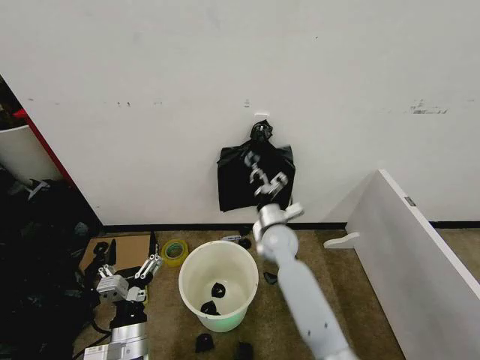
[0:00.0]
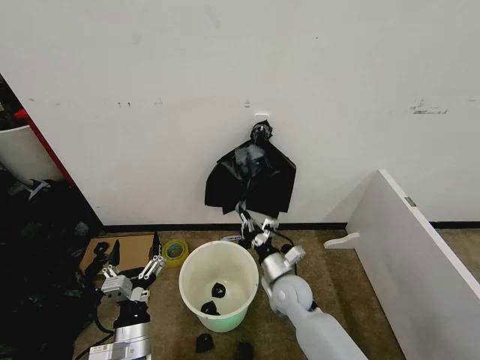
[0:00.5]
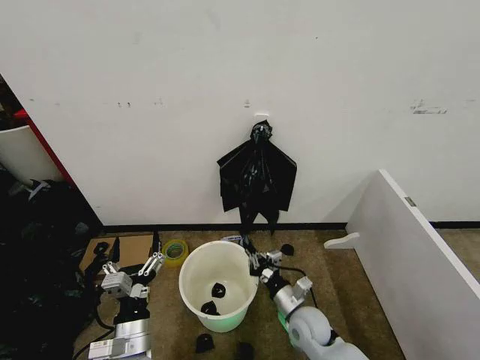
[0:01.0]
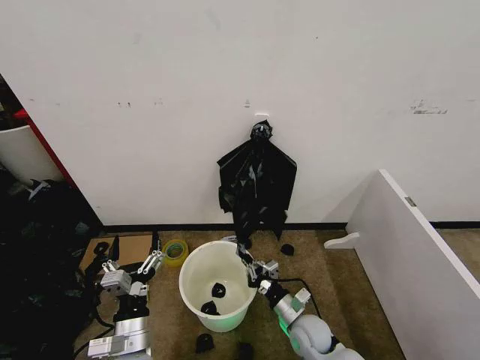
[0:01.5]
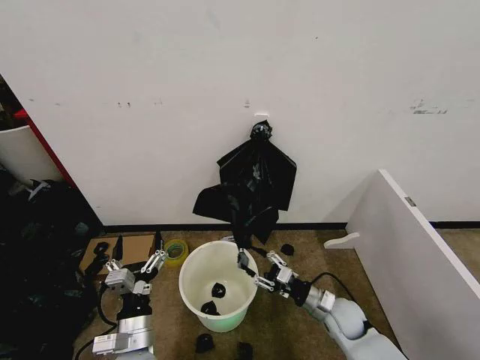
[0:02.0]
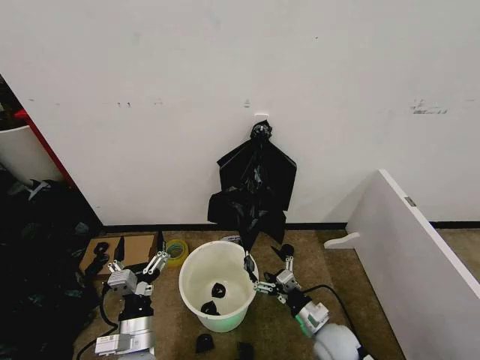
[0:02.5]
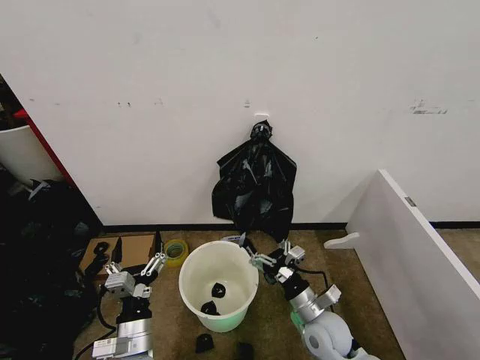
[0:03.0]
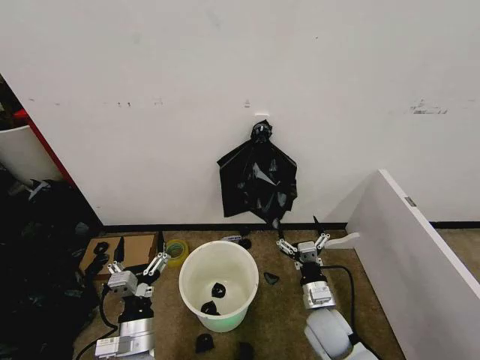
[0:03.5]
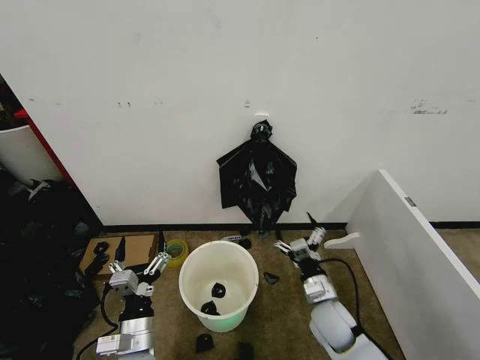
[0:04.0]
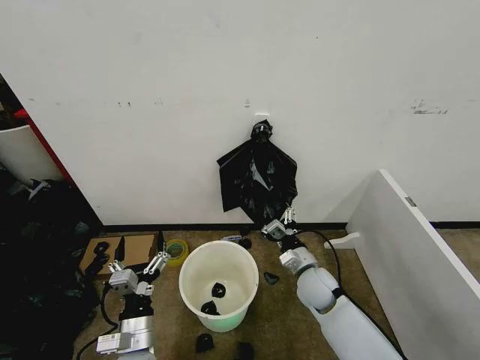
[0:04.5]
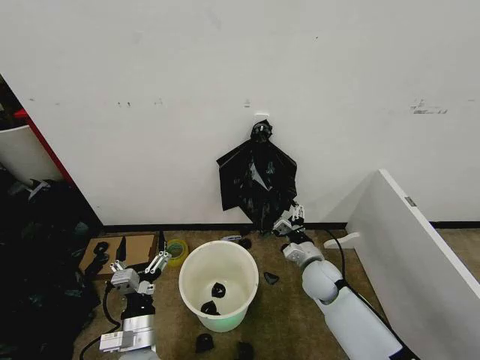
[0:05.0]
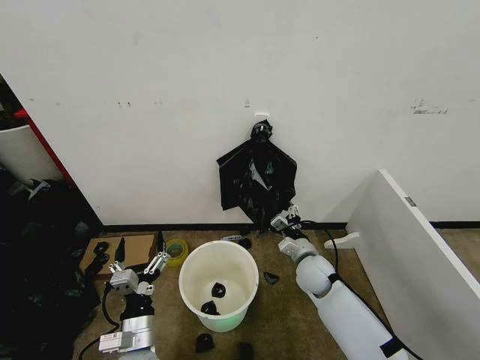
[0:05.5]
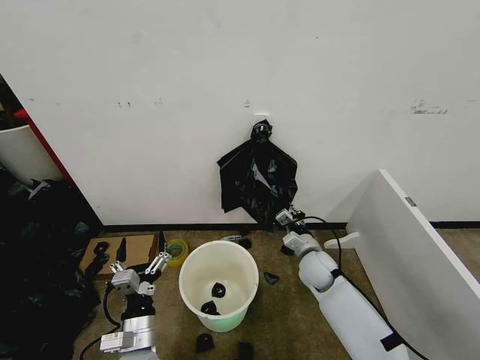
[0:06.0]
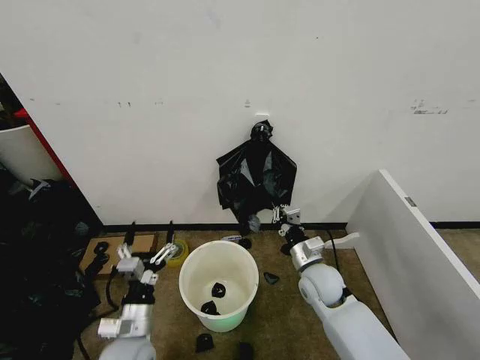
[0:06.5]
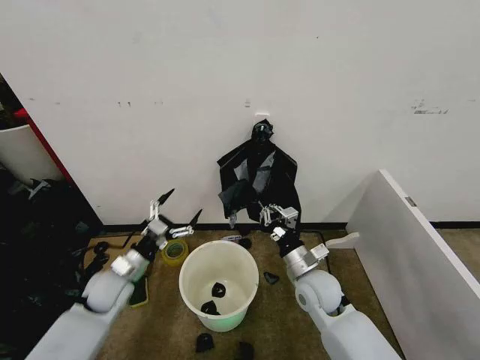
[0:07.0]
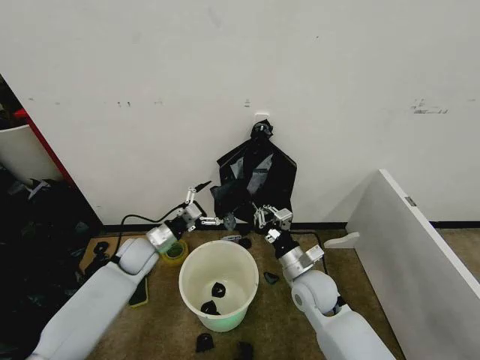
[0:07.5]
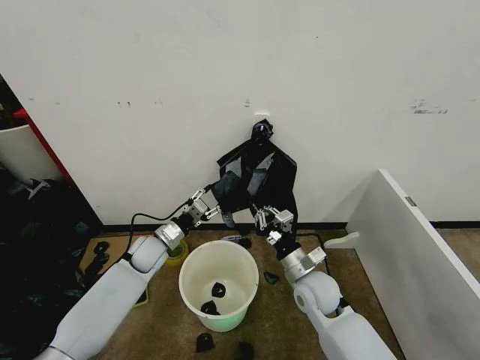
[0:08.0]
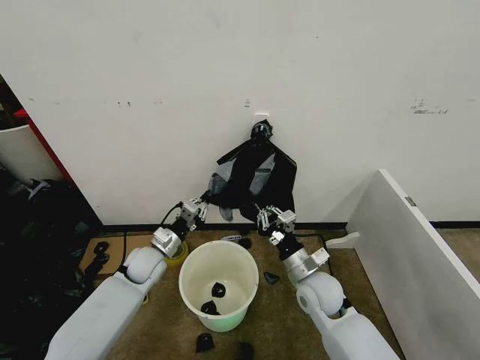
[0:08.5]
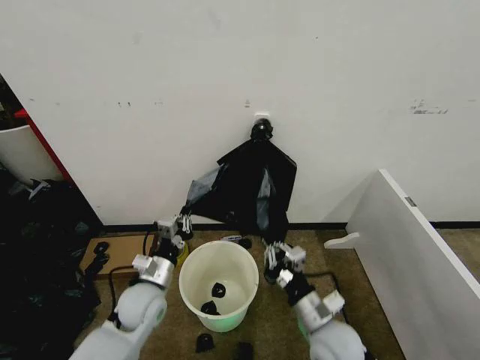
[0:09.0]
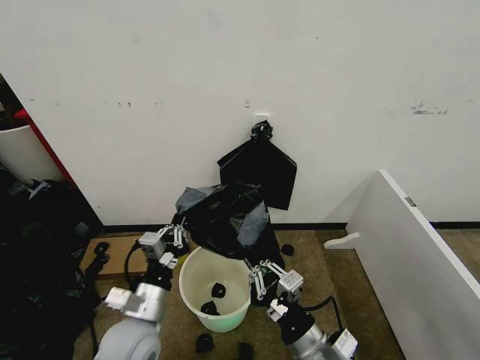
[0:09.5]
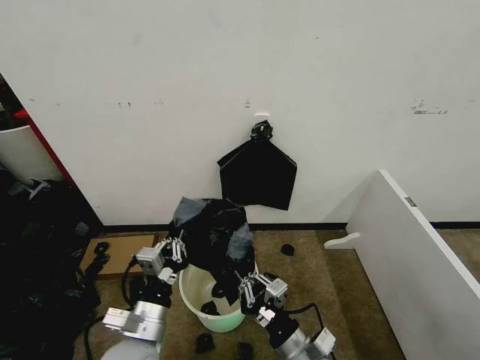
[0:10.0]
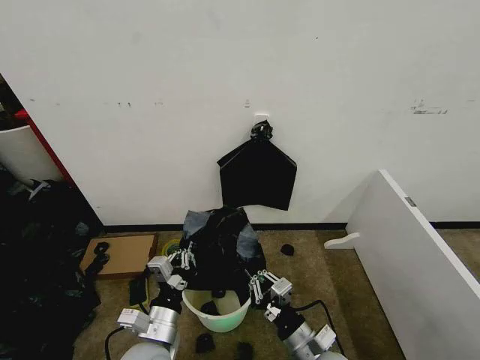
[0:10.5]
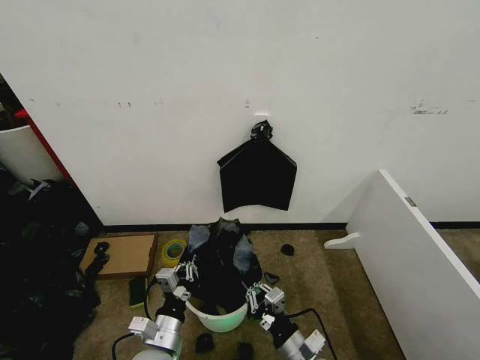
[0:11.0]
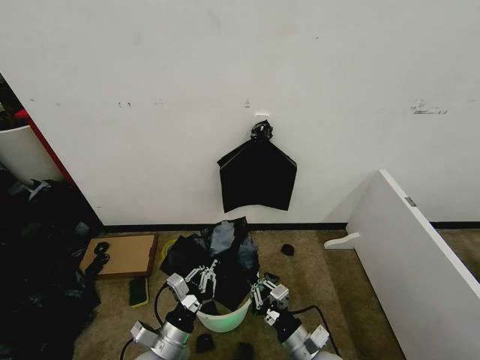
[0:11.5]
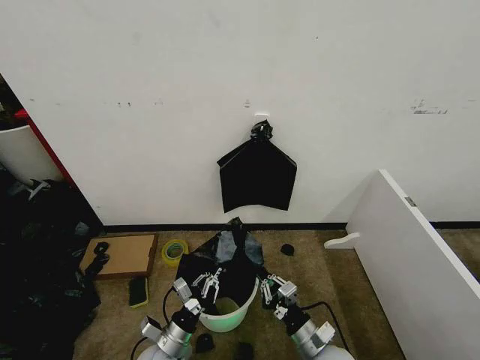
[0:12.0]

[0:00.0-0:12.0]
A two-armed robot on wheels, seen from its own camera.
Task of the whole recording: Place the garbage bag over the trash bin.
0:00.0 to 0:02.0: The right gripper moves to the right, backward and downward, some 25 cm, and opens up.
0:02.0 to 0:04.0: The right gripper changes place by some 5 cm, and opens.
0:04.0 to 0:06.0: The right gripper moves forward, approximately 10 cm, and closes its fingers.
0:06.0 to 0:08.0: The left gripper shifts about 25 cm forward, and closes its fingers; the right gripper travels backward by approximately 10 cm.
0:08.0 to 0:10.0: The left gripper moves backward, about 25 cm, and closes its fingers. Meanwhile the right gripper is displaced backward by roughly 15 cm.
0:10.0 to 0:12.0: The left gripper is displaced downward by some 15 cm. Meanwhile the right gripper travels downward and to the right by some 10 cm.

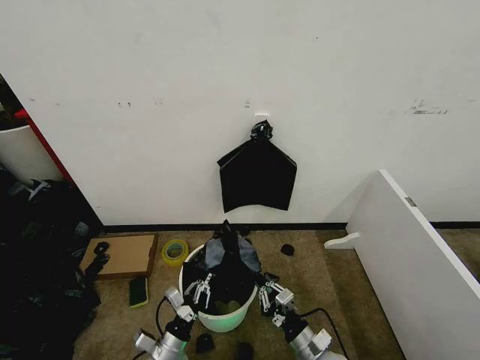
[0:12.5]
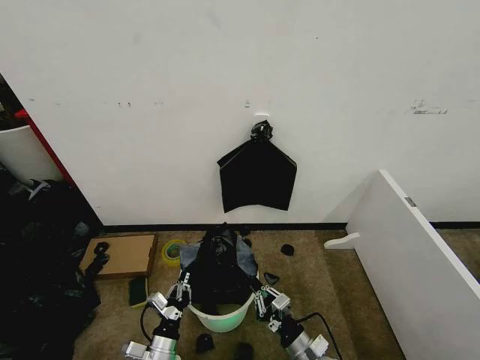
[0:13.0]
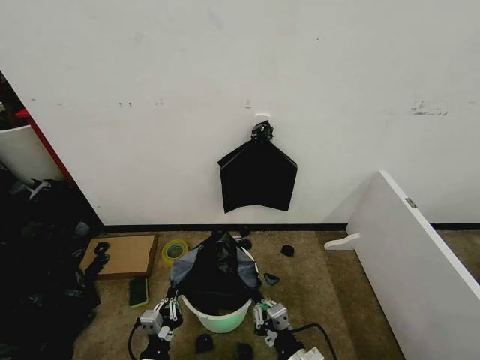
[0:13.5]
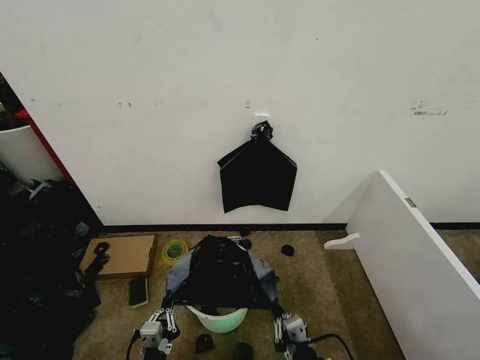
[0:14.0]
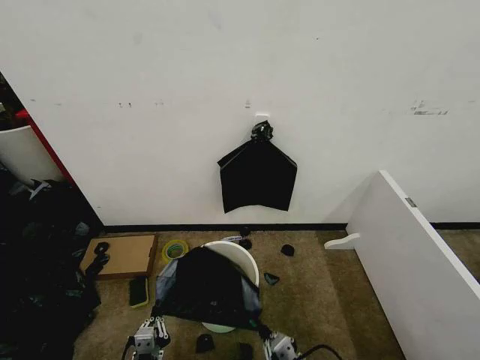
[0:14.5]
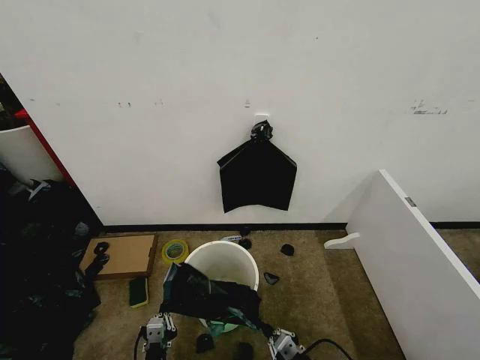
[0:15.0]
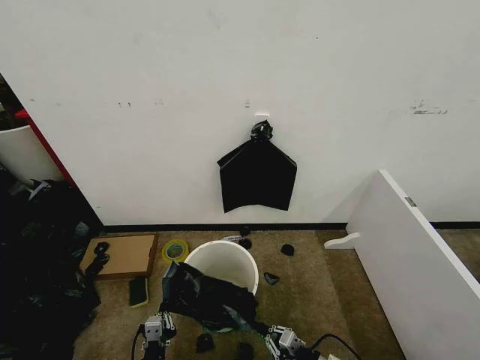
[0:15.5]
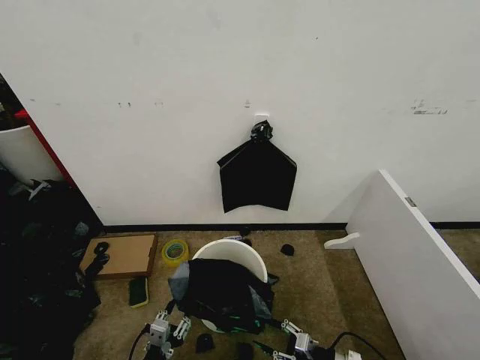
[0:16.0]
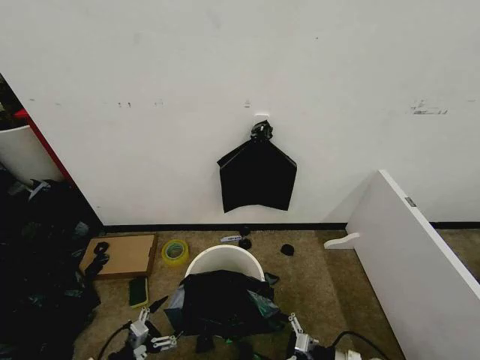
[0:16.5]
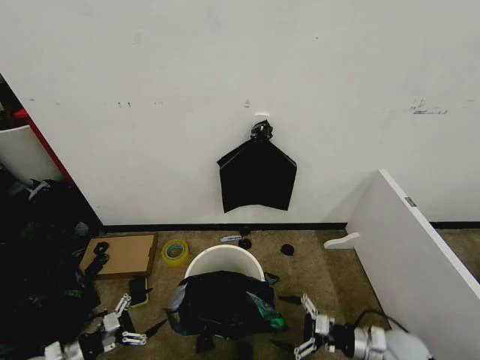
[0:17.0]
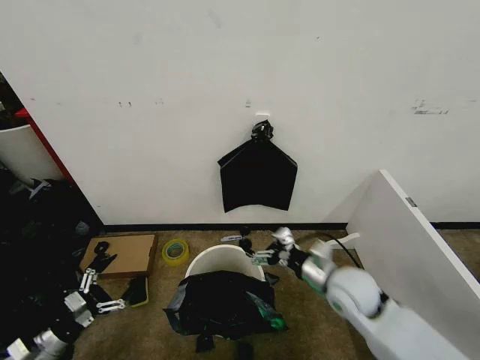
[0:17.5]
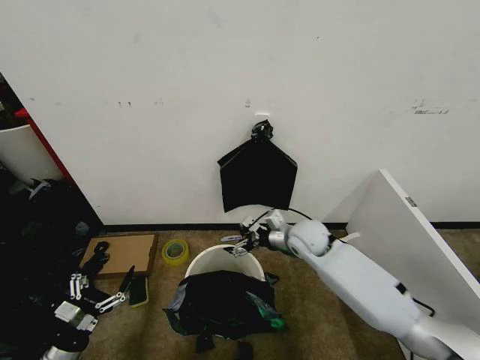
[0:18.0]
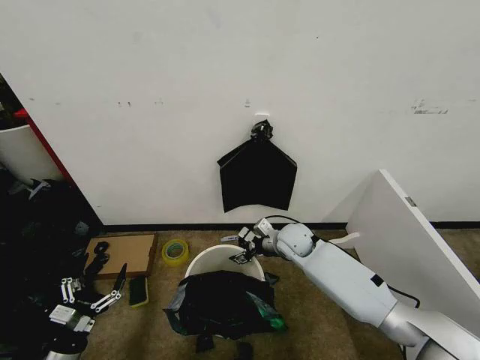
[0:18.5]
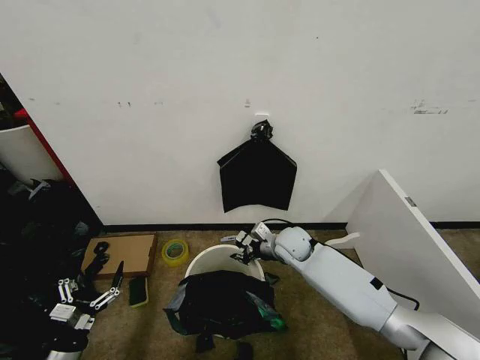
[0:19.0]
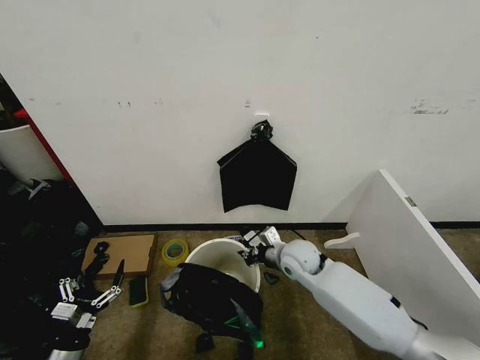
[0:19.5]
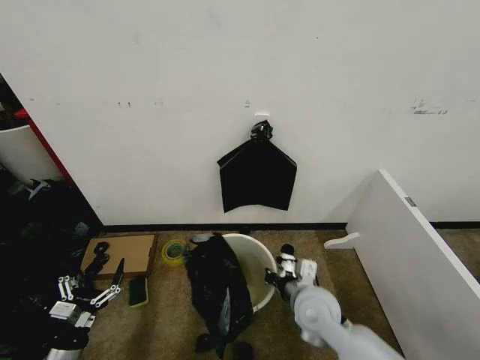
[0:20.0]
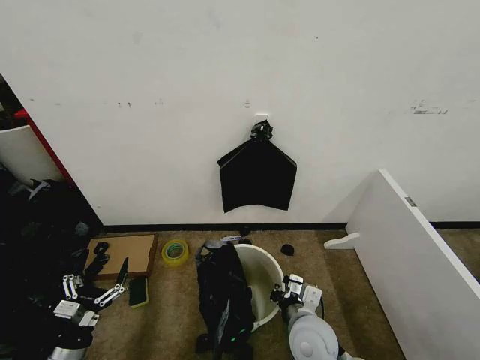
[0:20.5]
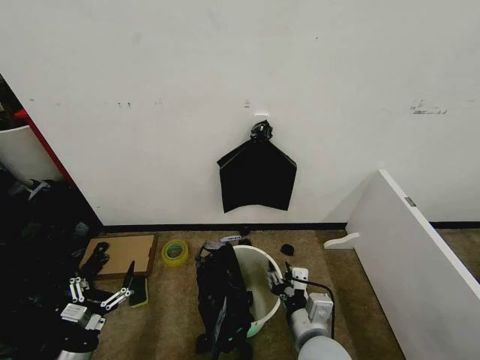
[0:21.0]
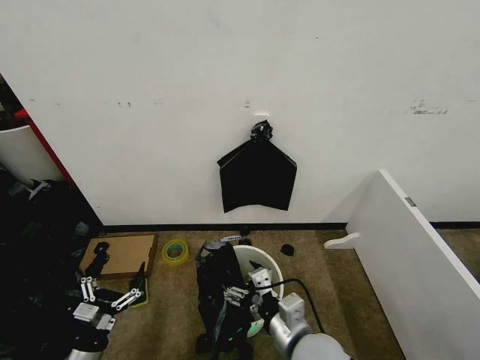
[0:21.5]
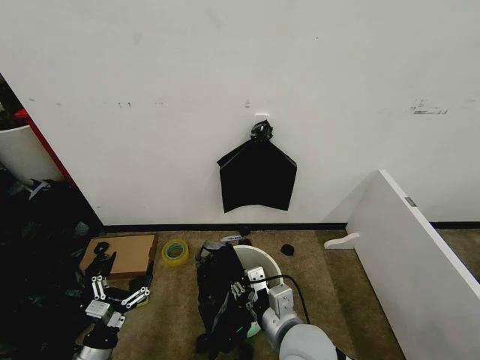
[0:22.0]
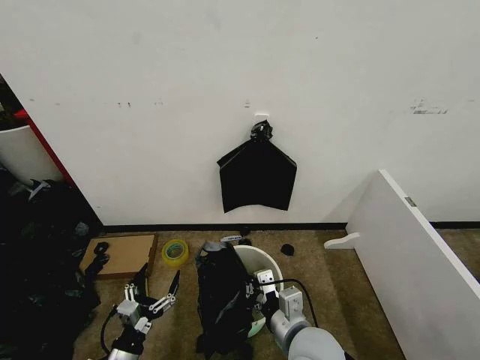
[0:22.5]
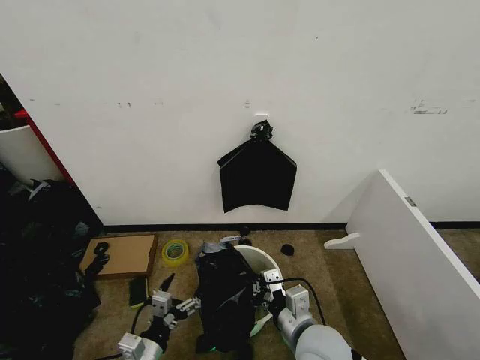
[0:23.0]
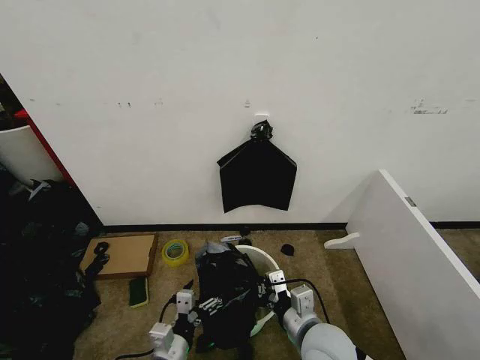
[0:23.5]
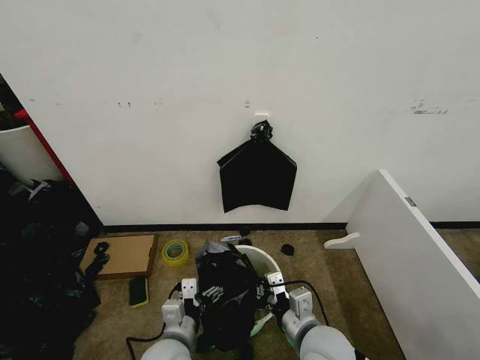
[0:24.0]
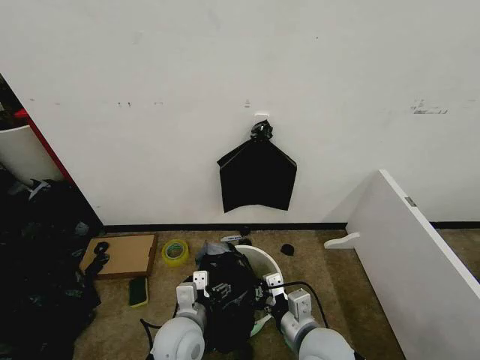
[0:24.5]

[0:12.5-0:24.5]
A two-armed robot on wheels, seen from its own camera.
Task of the whole recording: Place the garbage bag over the trash bin.
0:12.5 to 0:14.5: The right gripper is displaced backward and upward by approximately 10 cm. The left gripper is displaced backward by approximately 10 cm.
0:14.5 to 0:16.5: The left gripper is displaced to the left by roughly 15 cm, and opens, while the right gripper goes approximately 15 cm to the right, forward and downward, and opens up.
0:16.5 to 0:18.5: The left gripper heads to the left, covering roughly 5 cm; the right gripper travels forward, to the left and upward by about 35 cm.
0:18.5 to 0:20.5: The right gripper is displaced backward by approximately 25 cm, and closes its fingers.
0:20.5 to 0:22.5: The right gripper shifts approximately 5 cm upward, and opens, then closes again, while the left gripper heads to the right, covering some 10 cm.
0:22.5 to 0:24.5: The left gripper heads to the right, forward and upward, covering some 20 cm.

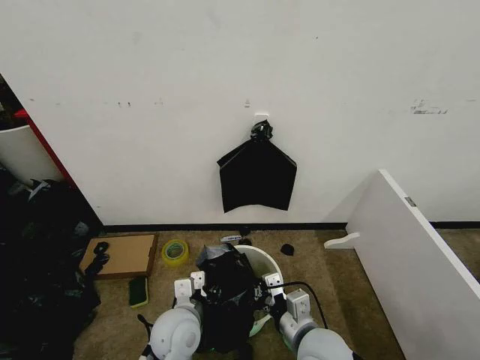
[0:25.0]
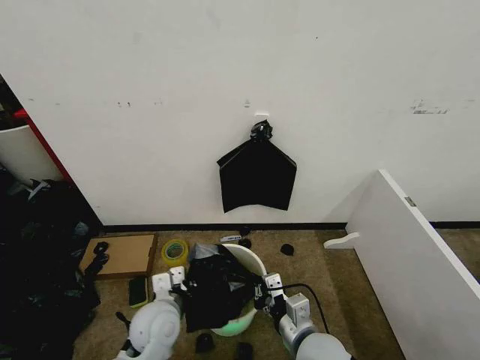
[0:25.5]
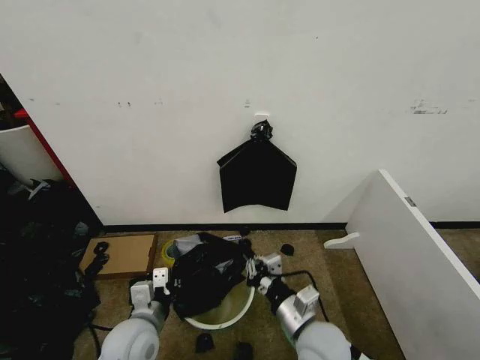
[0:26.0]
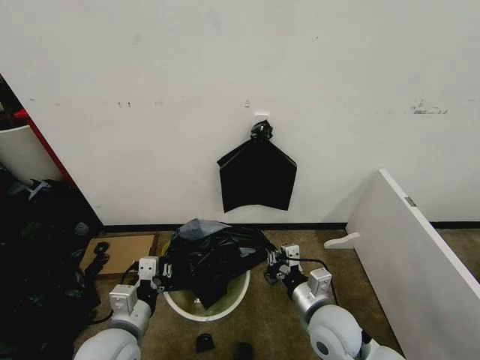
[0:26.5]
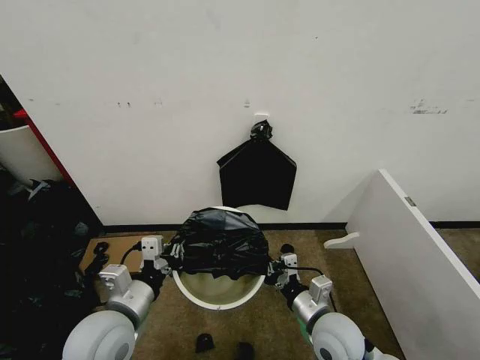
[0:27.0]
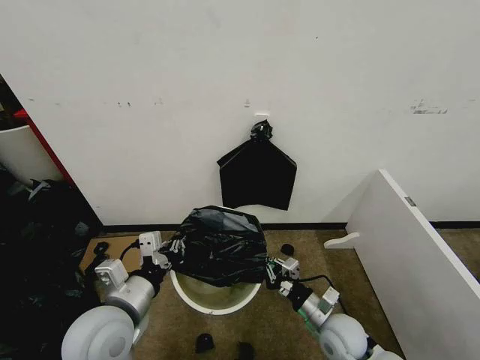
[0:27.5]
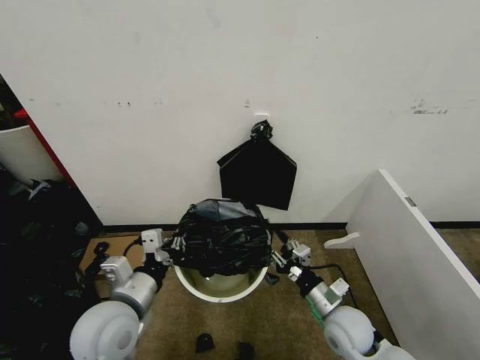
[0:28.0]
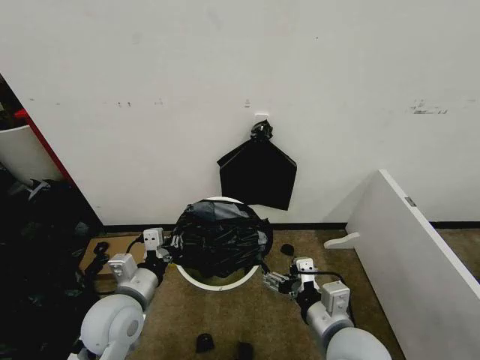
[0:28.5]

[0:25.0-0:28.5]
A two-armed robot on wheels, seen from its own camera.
Task of the whole recording: Place the garbage bag over the trash bin.
0:25.0 to 0:27.0: The left gripper travels upward and to the left by about 15 cm, and closes its fingers, while the right gripper shifts by about 5 cm.
0:27.0 to 0:28.5: The right gripper goes about 10 cm upward, and opens up.
